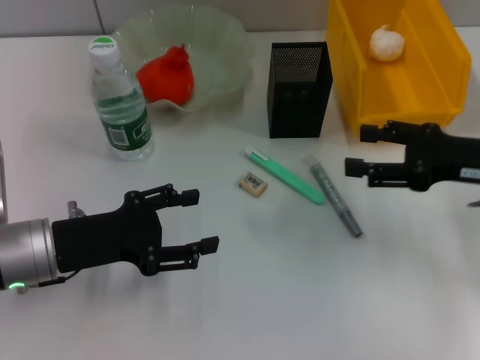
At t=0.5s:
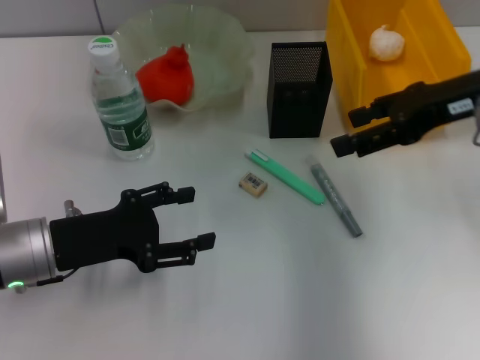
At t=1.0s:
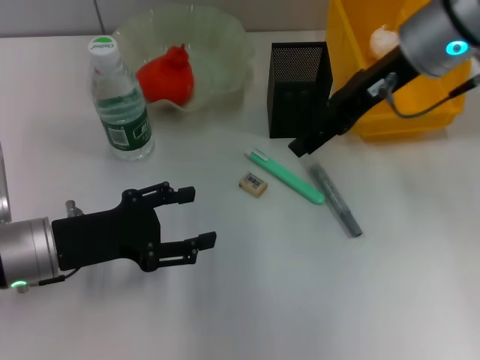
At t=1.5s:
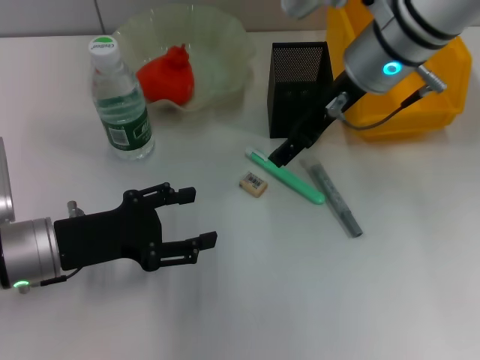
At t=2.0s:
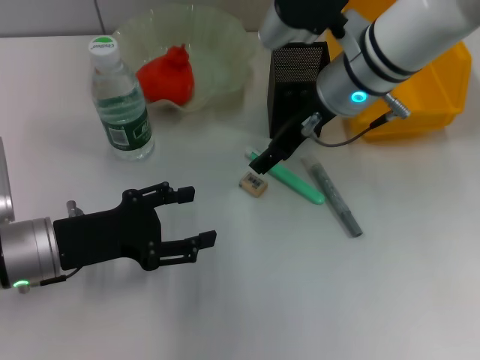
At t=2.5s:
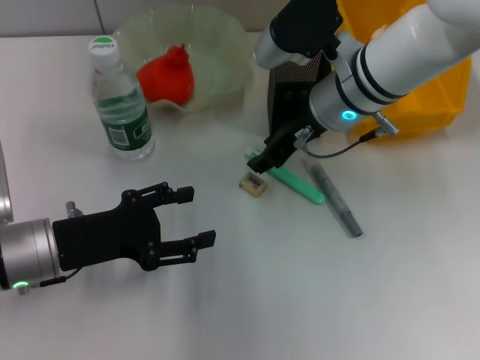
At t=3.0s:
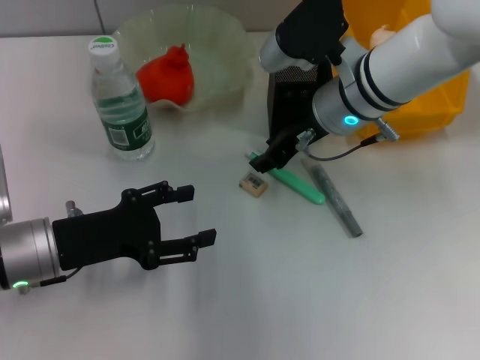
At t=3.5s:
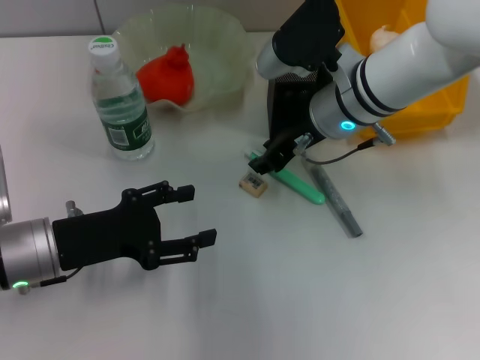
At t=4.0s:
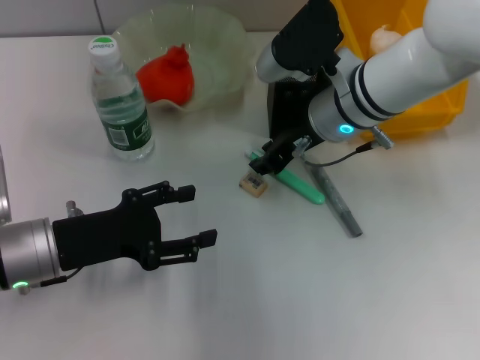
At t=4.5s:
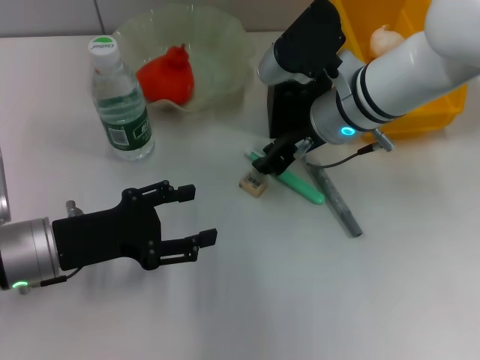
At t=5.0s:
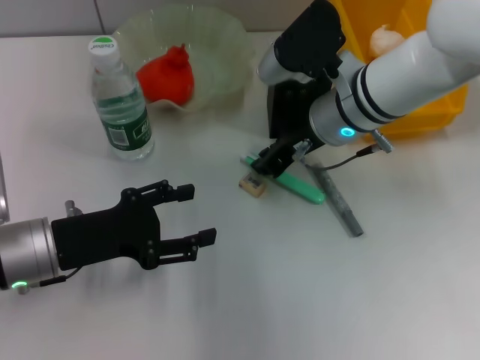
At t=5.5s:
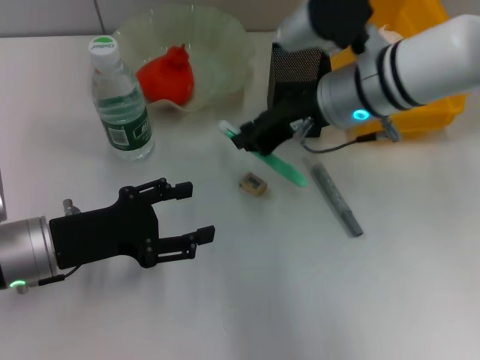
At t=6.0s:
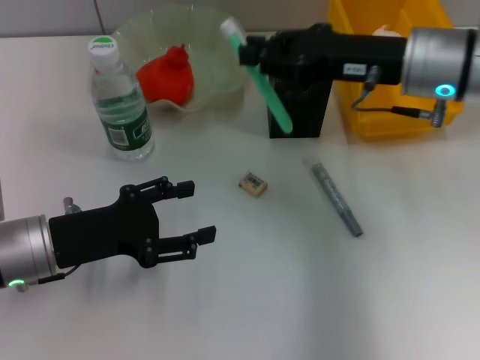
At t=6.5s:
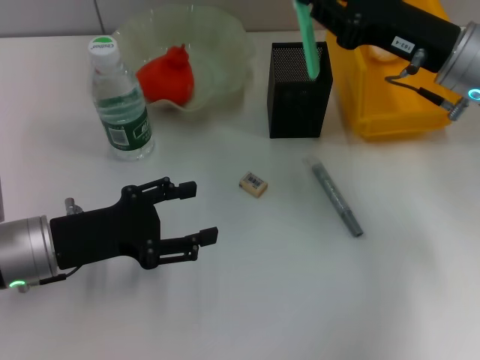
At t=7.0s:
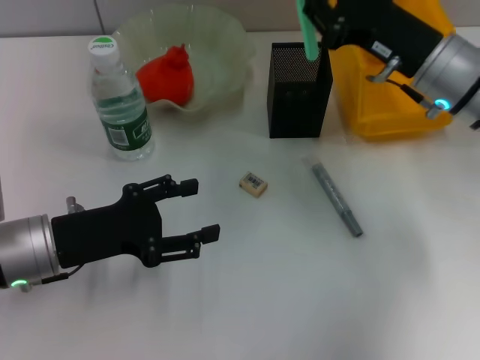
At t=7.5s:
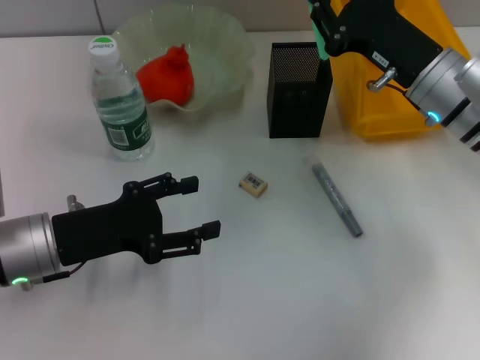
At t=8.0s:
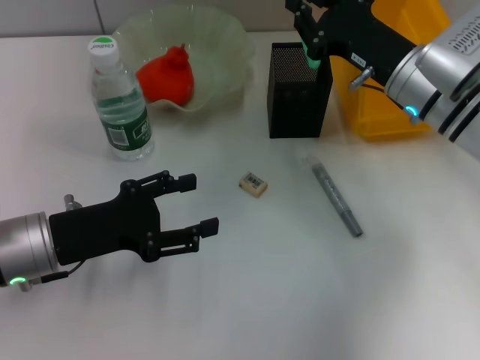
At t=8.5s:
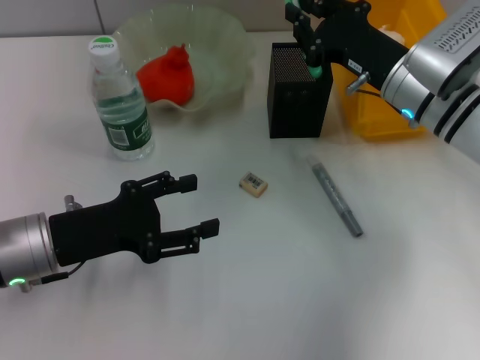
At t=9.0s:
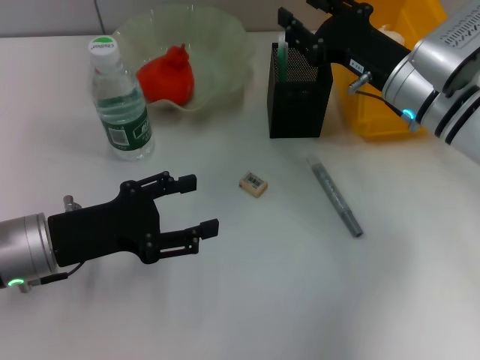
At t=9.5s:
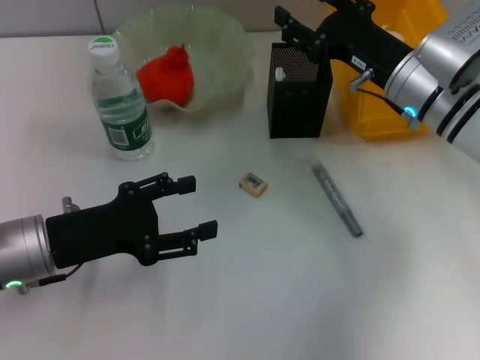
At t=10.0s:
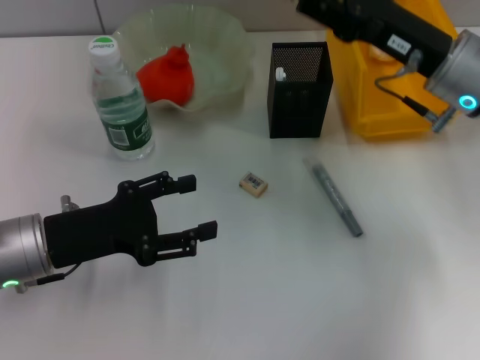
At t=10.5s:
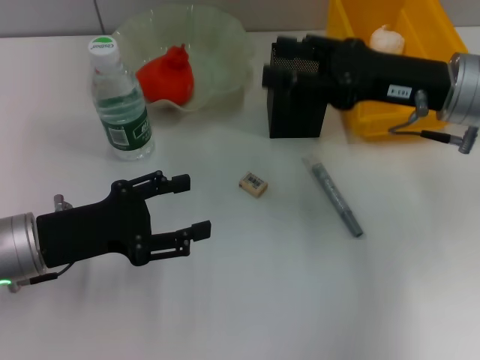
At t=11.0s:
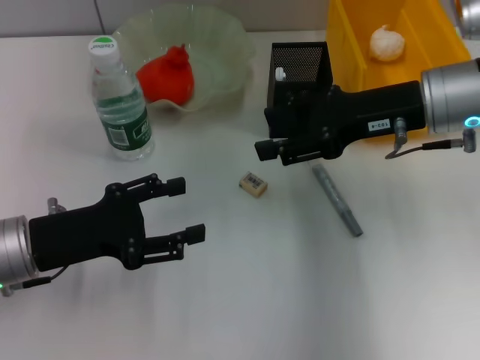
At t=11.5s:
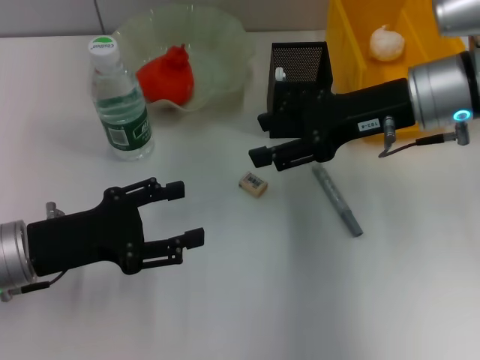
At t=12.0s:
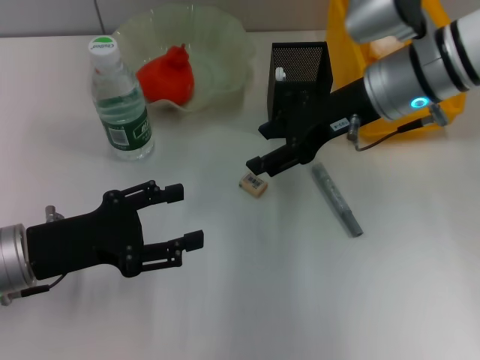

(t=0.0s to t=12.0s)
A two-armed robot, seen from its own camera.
Step, t=0.0s - t=4.5s: Grab the blue utility knife with the right hand.
Step, t=5.0s - t=9.0s: Place the blue utility knife into the pen holder with the right hand.
t=0.0s - t=2.0s: The right gripper travels to the left and forward by about 20 cm.
t=2.0s - t=4.0s: The right gripper closes its fingers.
t=4.0s - t=6.0s: The right gripper is displaced to the right and upward by about 10 cm.
t=6.0s - t=8.0s: The right gripper shifts some 5 cm downward.
t=8.0s - t=10.0s: The right gripper changes place by about 5 cm, and opens its fingers.
t=10.0s - t=12.0s: The right gripper is displaced to the left by some 5 cm.

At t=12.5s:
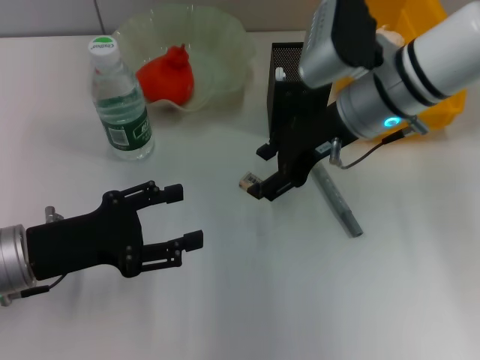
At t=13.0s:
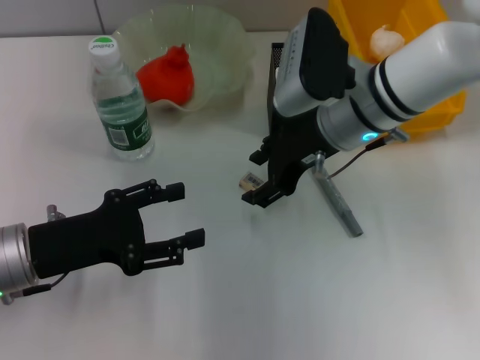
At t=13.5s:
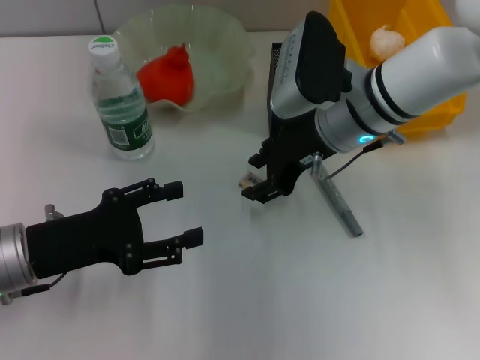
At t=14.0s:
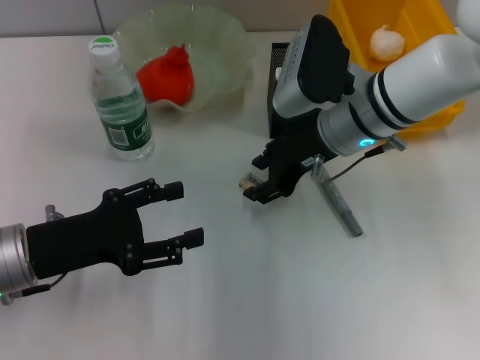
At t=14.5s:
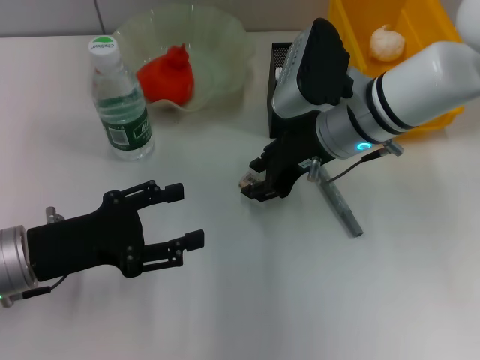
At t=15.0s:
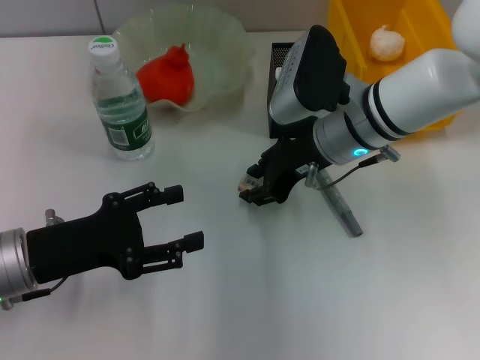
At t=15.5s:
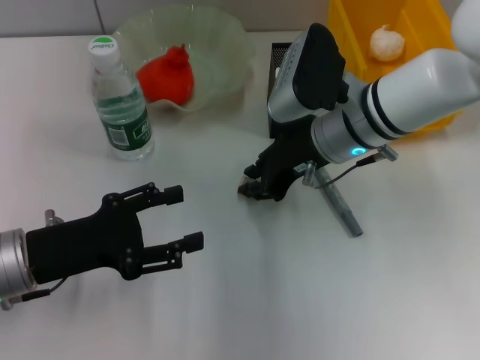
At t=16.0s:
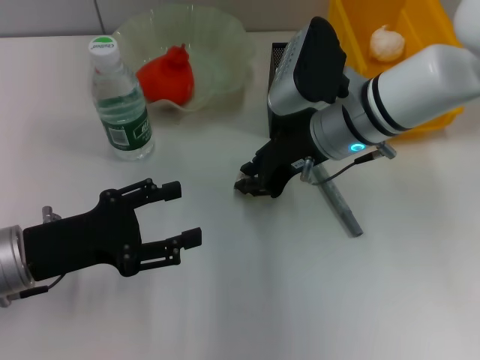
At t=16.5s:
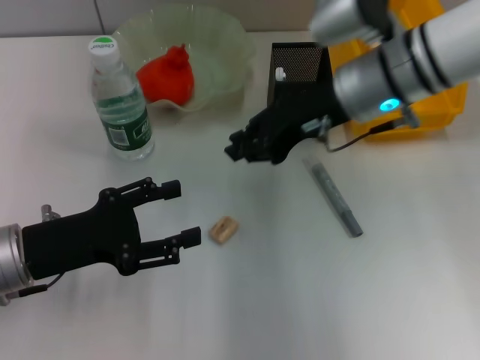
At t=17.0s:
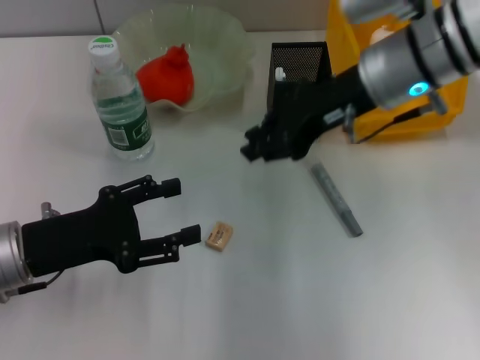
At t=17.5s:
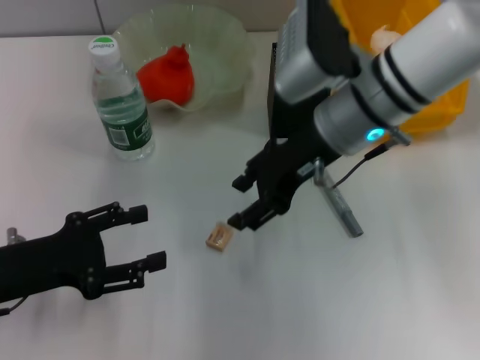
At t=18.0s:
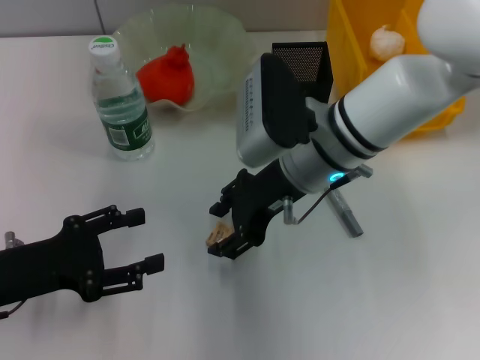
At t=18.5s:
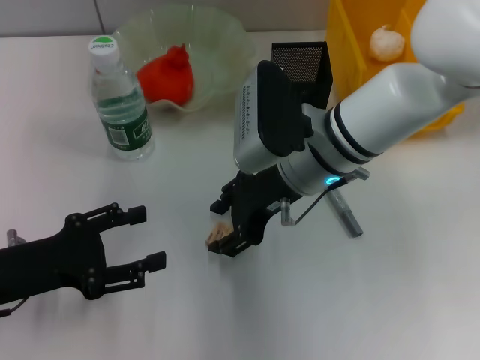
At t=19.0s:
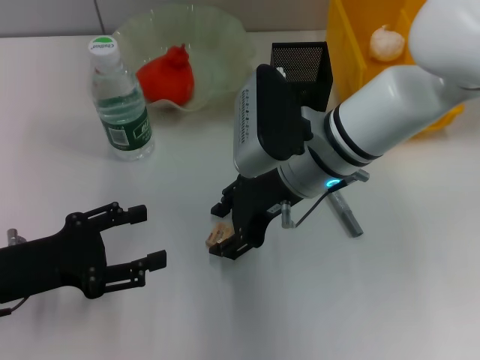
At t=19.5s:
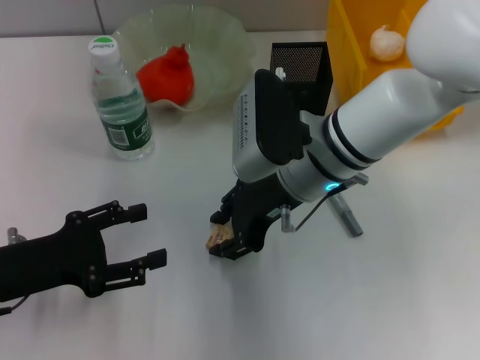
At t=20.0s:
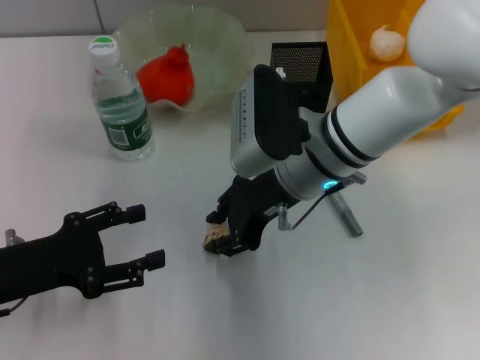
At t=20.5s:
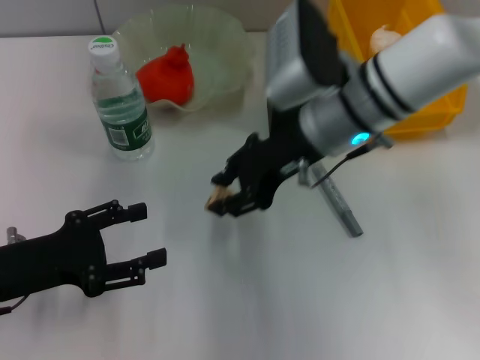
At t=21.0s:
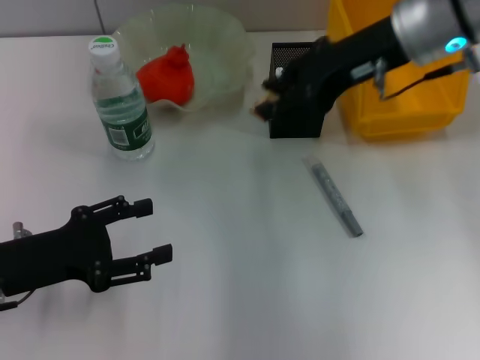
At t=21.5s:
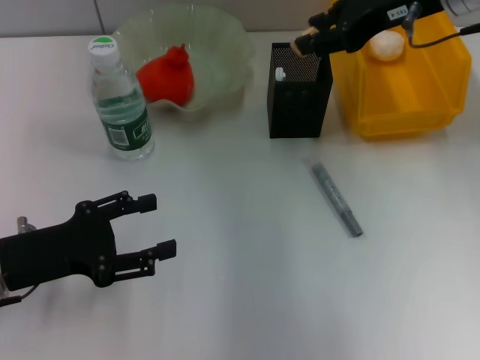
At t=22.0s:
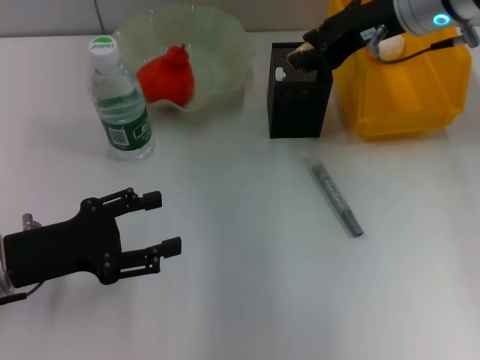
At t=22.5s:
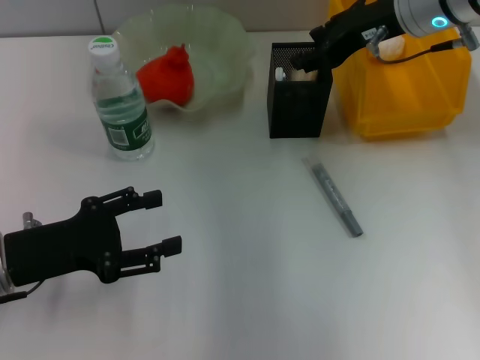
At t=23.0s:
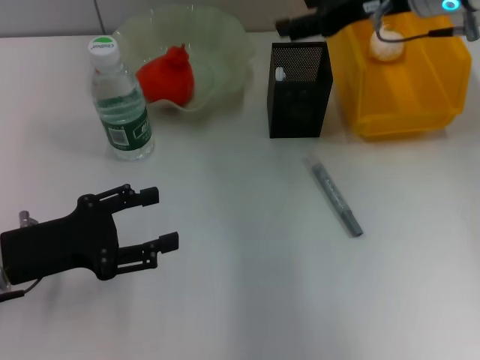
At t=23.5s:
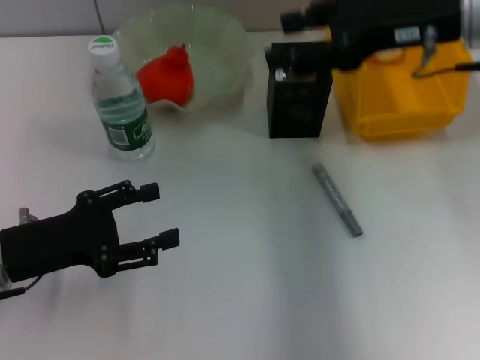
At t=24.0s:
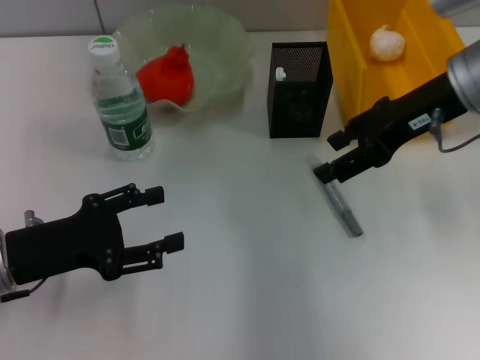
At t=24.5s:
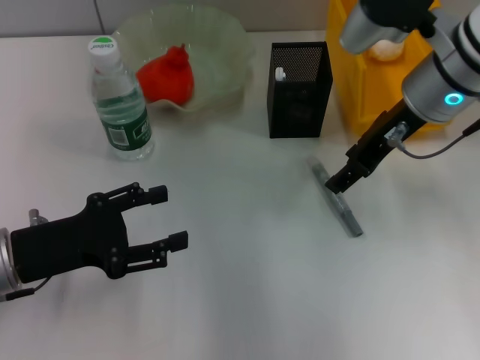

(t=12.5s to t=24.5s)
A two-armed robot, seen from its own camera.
Step, t=12.5s - t=19.5s: Grab the eraser with the right hand.
Step, t=20.0s - t=22.5s: Put the eraser into the pen holder with the right hand.
t=12.5s - t=14.5s: The grippers make only small movements.
t=14.5s - t=16.5s: The right gripper travels upward by about 5 cm, and closes its fingers.
t=16.5s - t=18.5s: The right gripper shifts roughly 10 cm downward and to the left, and opens its fingers.
t=18.5s - t=20.5s: The right gripper moves roughly 5 cm.
t=20.5s - t=22.5s: The right gripper is displaced to the right and forward by roughly 10 cm.
t=22.5s - t=24.5s: The right gripper moves backward, approximately 5 cm, and opens up.

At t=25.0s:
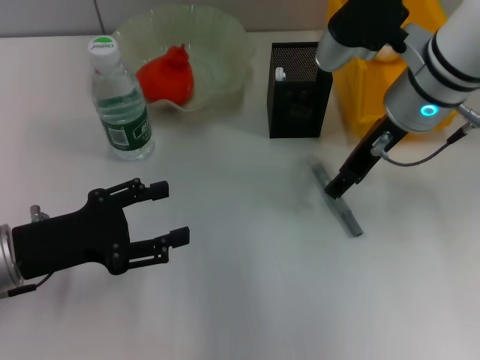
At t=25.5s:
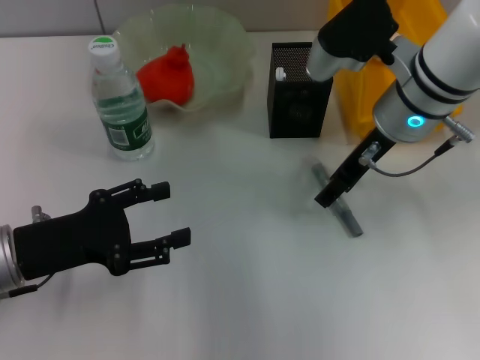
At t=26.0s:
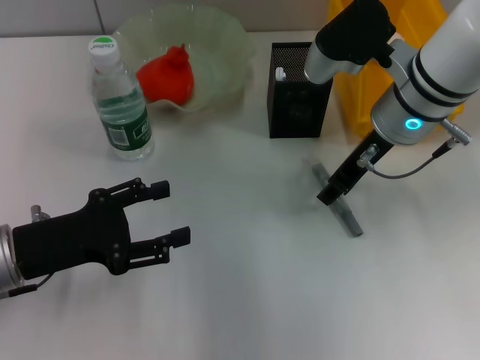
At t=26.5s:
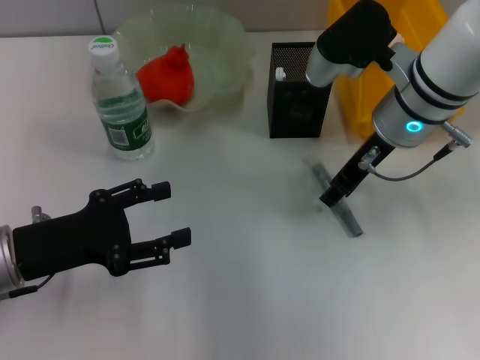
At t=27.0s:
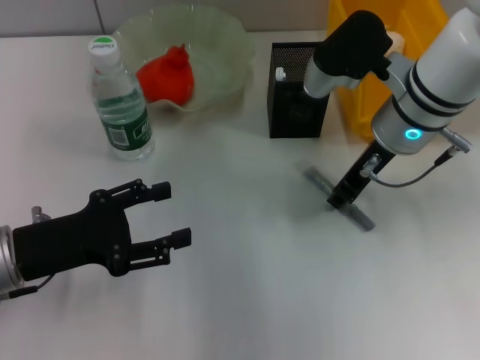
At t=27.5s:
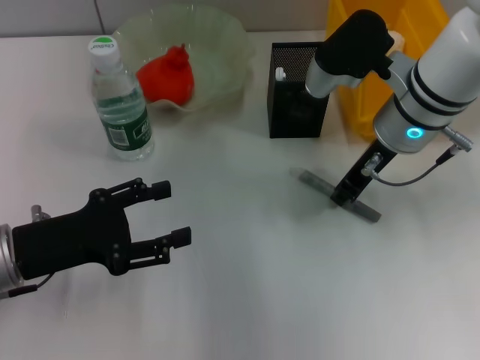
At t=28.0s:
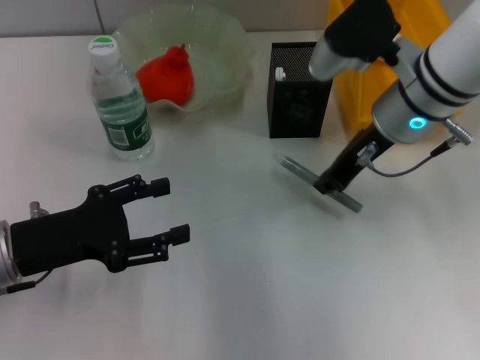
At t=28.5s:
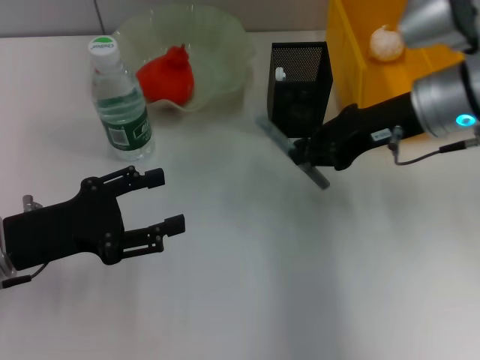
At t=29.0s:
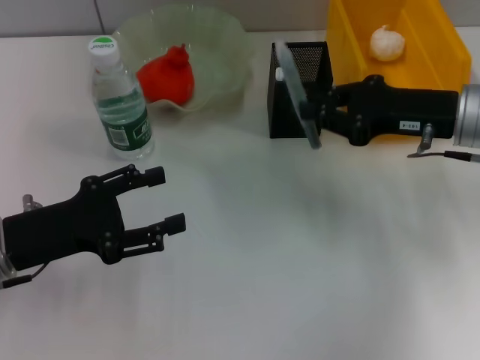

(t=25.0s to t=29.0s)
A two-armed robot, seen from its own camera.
Step, t=25.0s - t=27.0s: Grab the gray glue with the right hand.
t=25.0s - t=27.0s: The right gripper closes.
t=27.0s - t=29.0s: The right gripper is displaced to the right by about 10 cm, and closes its fingers.
